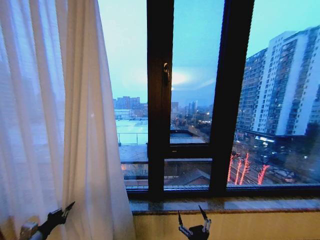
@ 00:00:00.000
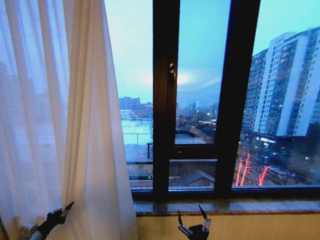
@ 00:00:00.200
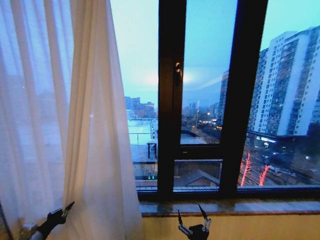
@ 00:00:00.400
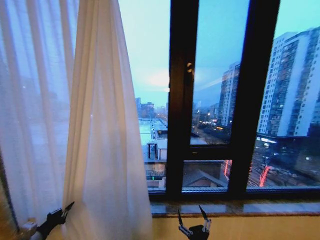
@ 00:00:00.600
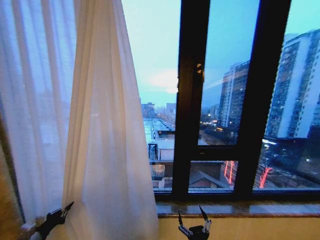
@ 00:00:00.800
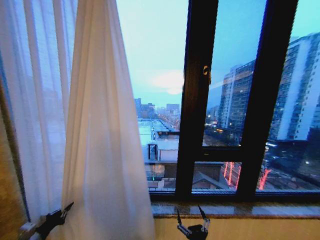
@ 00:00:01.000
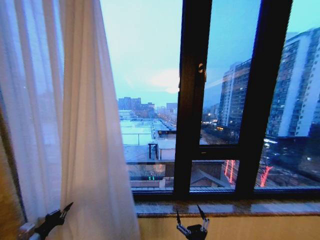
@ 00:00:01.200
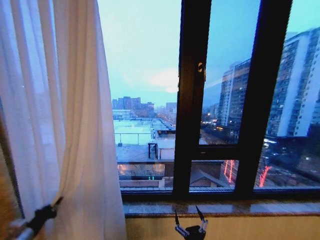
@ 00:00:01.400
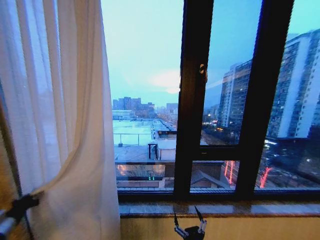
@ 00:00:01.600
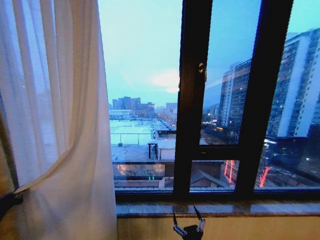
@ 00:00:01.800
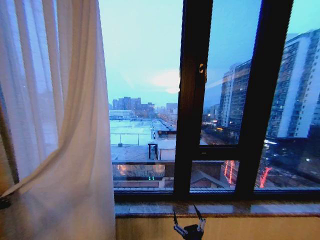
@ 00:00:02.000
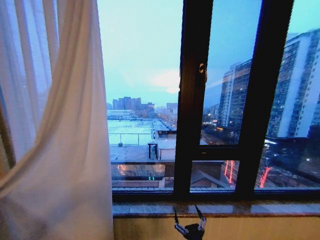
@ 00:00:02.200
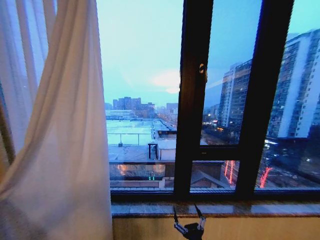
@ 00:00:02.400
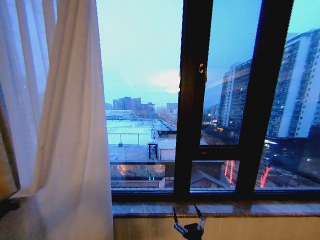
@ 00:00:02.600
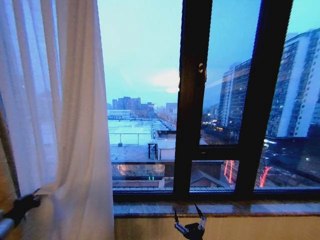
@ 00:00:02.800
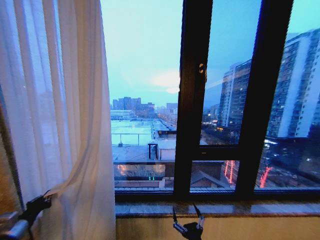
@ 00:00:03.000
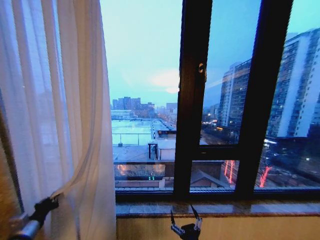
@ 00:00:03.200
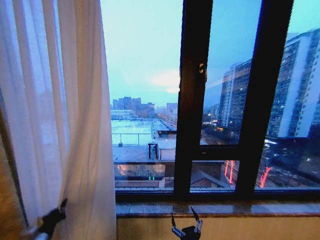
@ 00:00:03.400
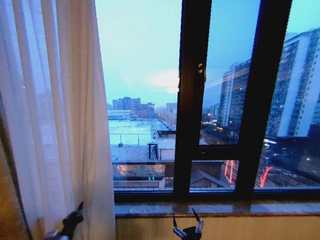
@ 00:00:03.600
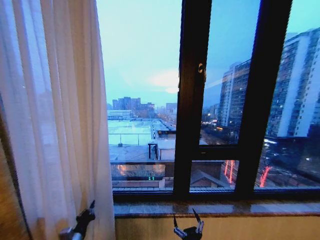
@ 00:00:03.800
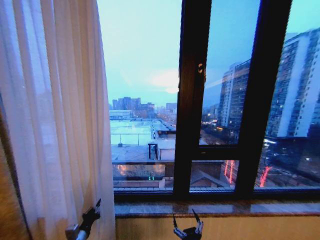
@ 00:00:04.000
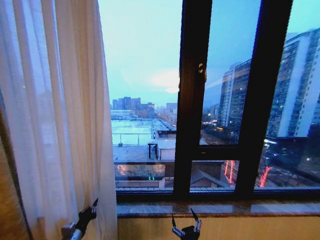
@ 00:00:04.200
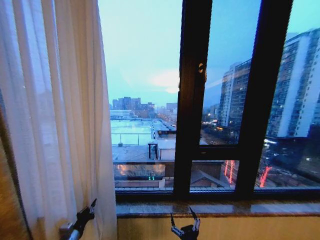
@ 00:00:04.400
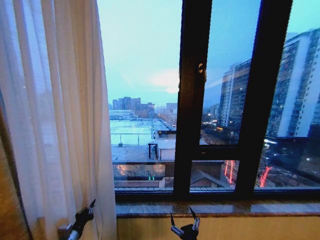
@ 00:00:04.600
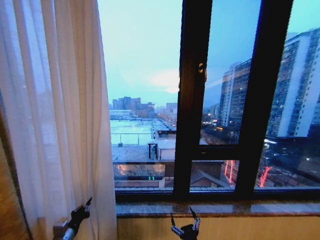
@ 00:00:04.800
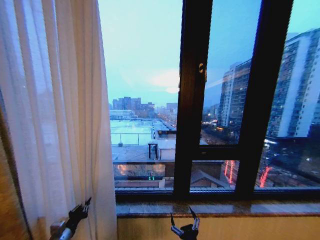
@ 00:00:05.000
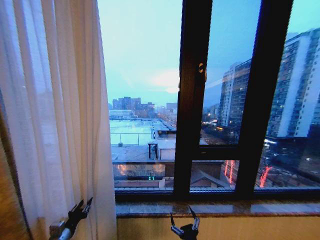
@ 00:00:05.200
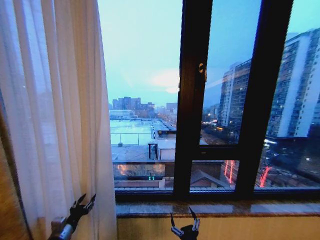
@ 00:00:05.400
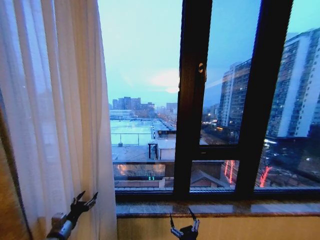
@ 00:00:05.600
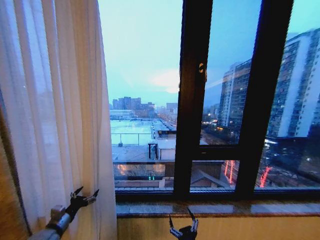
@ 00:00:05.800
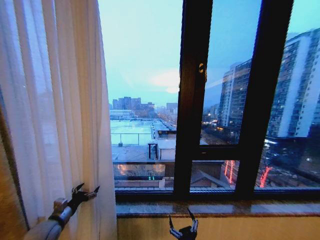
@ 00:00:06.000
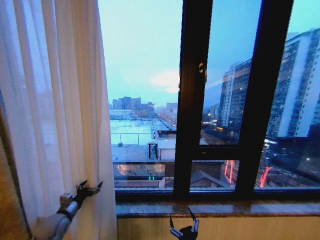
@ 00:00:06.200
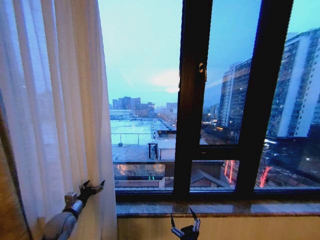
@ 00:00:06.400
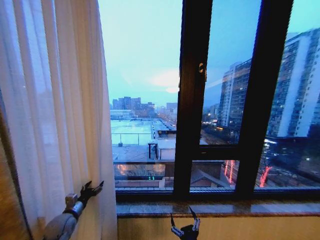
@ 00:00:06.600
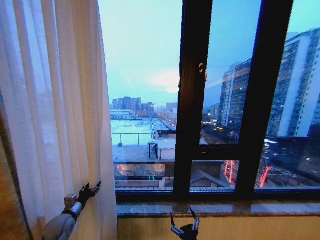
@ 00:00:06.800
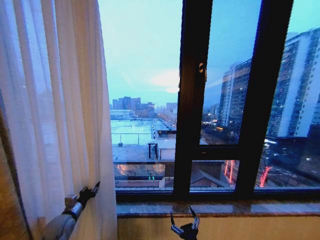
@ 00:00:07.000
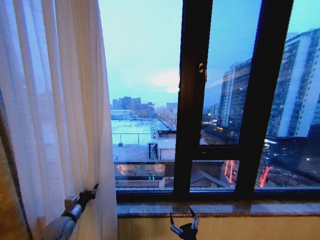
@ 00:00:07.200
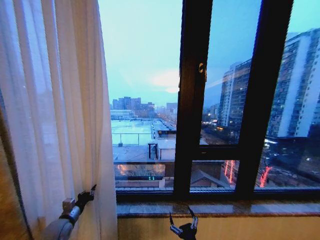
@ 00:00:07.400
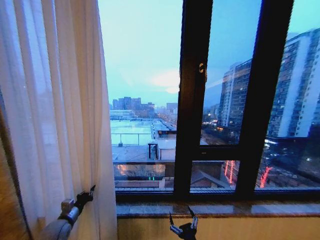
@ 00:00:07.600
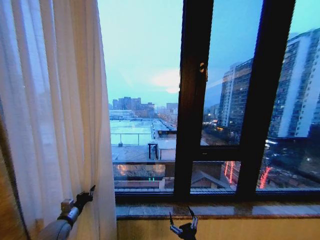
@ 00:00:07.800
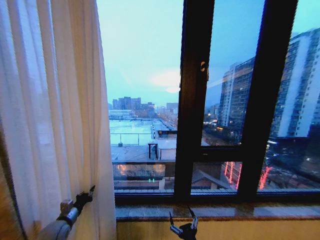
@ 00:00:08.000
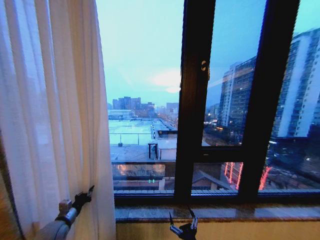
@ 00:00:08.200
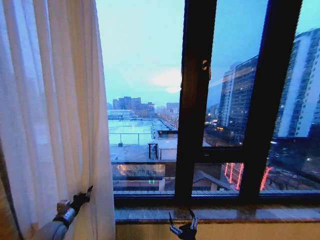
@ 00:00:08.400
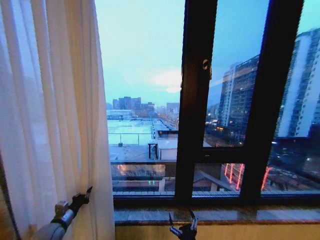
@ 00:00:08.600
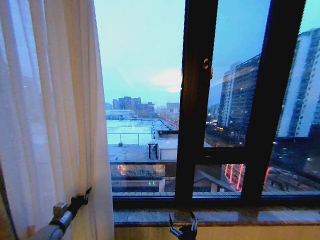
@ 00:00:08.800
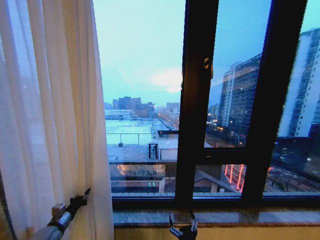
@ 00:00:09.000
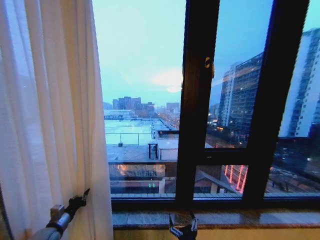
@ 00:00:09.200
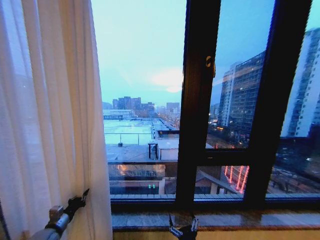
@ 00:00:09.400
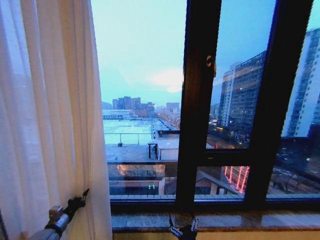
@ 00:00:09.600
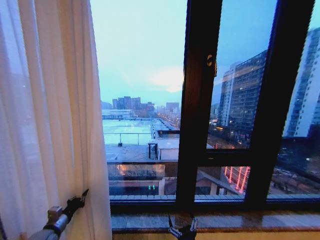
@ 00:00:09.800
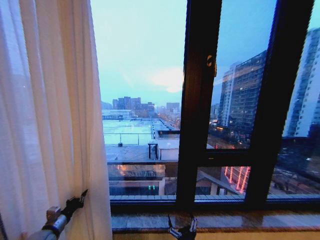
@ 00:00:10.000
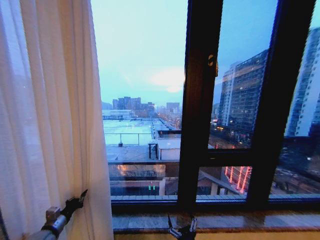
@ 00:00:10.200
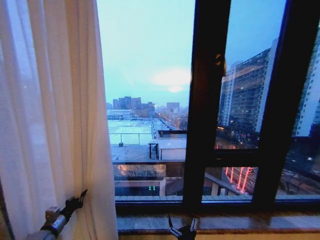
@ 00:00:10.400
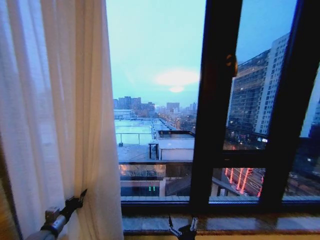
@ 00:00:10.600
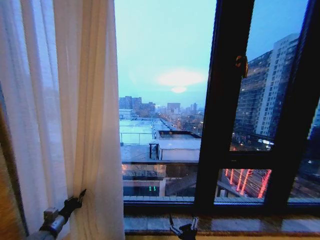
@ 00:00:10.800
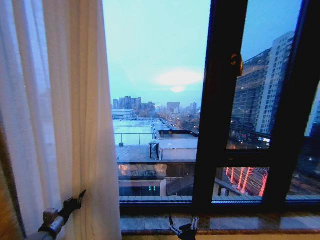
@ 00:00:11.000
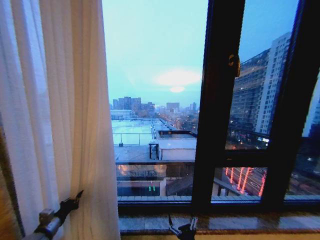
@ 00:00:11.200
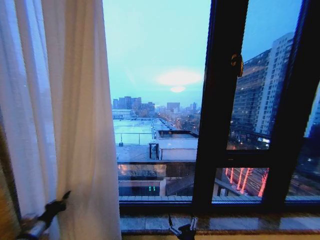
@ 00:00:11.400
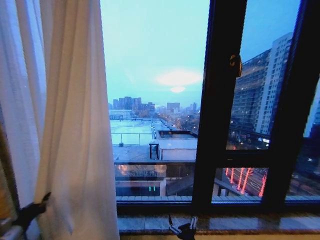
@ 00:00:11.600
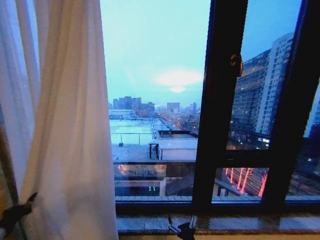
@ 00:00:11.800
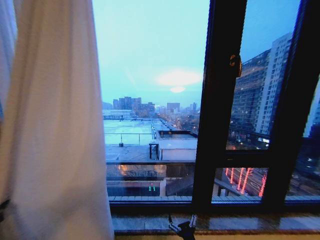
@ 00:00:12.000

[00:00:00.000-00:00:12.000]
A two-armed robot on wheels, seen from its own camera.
Task of the whole recording: Open the curtains by pulling them apart, changing their state from closed to fully open.
00:00:00.000 to 00:00:01.600: The left gripper shifts roughly 10 cm upward and to the left.
00:00:01.600 to 00:00:03.000: The left gripper travels to the right by approximately 5 cm.
00:00:03.000 to 00:00:04.400: The left gripper moves to the right and downward, about 20 cm.
00:00:04.400 to 00:00:06.000: The left gripper shifts roughly 10 cm upward and to the left, and opens up.
00:00:06.000 to 00:00:07.600: The left gripper closes its fingers.
00:00:10.400 to 00:00:12.000: The left gripper goes some 20 cm to the left and backward.

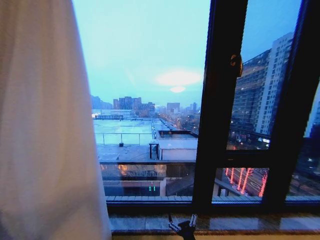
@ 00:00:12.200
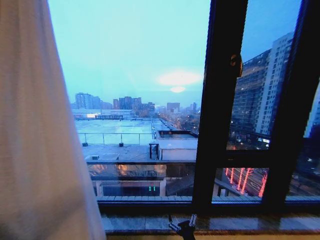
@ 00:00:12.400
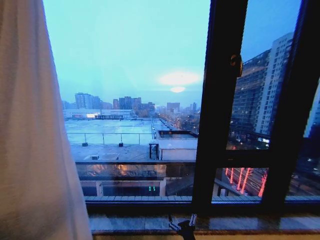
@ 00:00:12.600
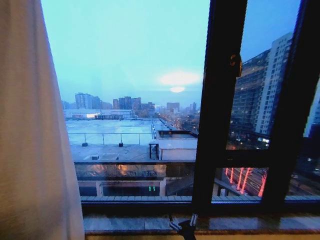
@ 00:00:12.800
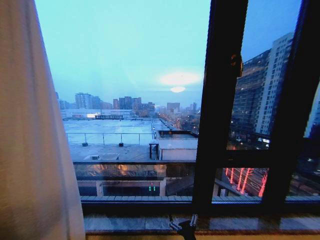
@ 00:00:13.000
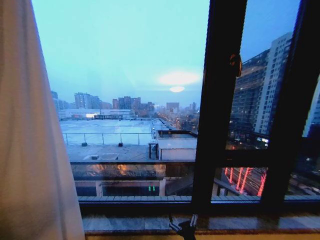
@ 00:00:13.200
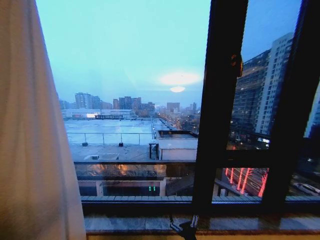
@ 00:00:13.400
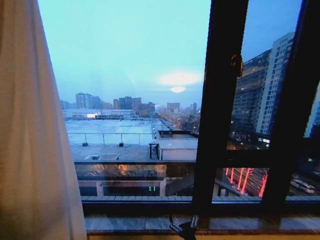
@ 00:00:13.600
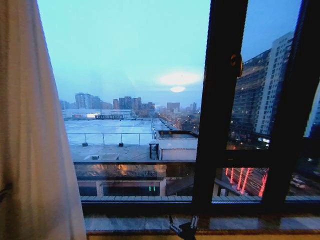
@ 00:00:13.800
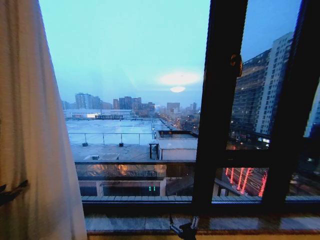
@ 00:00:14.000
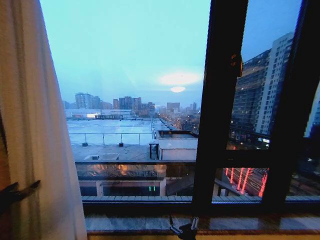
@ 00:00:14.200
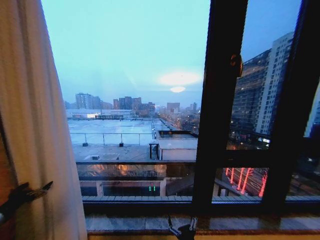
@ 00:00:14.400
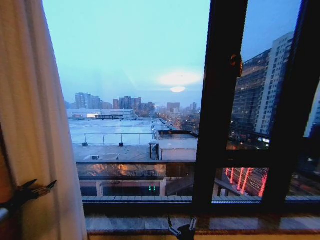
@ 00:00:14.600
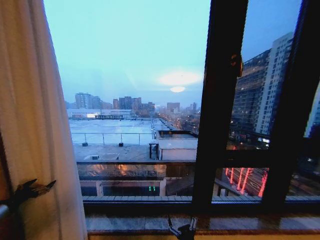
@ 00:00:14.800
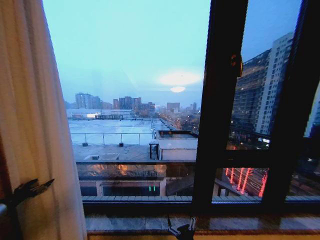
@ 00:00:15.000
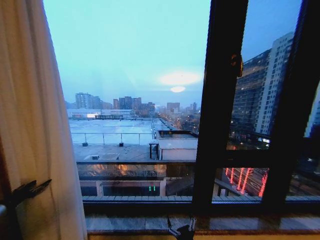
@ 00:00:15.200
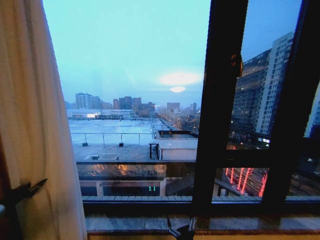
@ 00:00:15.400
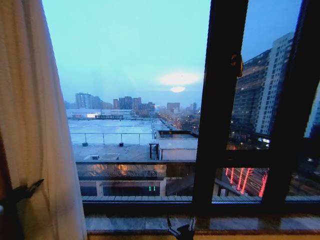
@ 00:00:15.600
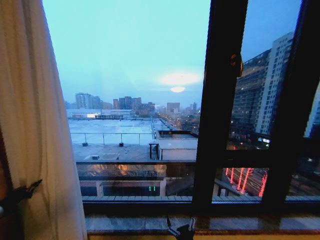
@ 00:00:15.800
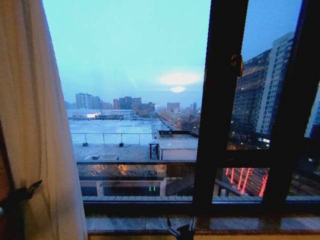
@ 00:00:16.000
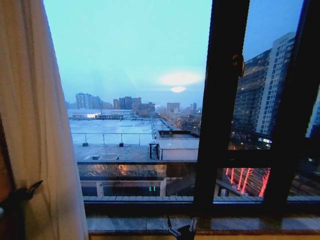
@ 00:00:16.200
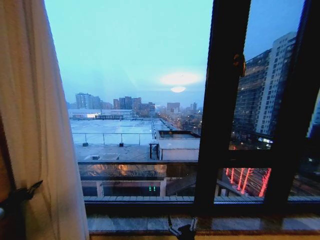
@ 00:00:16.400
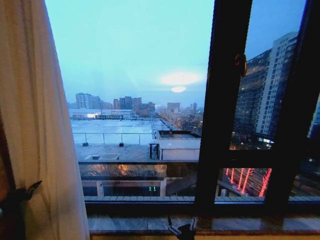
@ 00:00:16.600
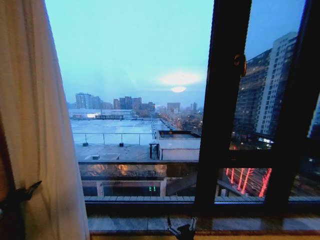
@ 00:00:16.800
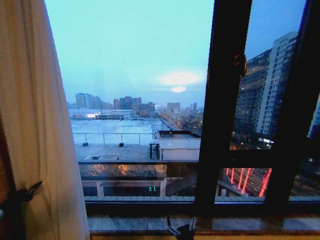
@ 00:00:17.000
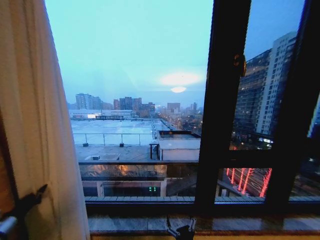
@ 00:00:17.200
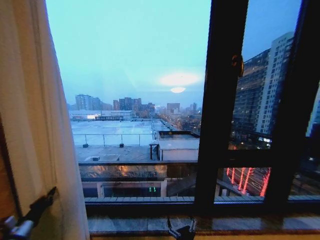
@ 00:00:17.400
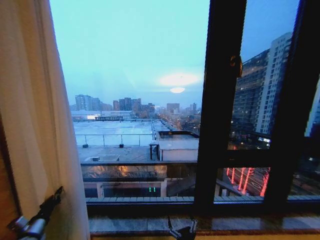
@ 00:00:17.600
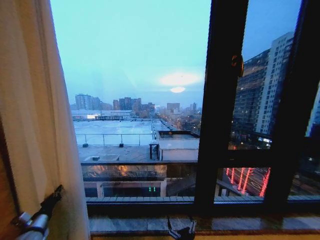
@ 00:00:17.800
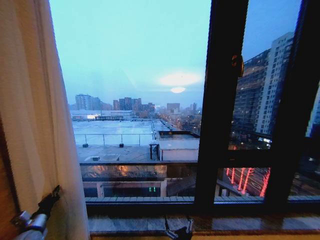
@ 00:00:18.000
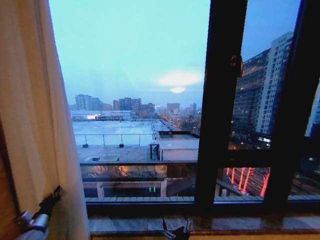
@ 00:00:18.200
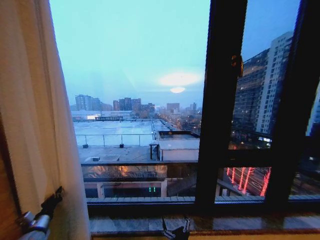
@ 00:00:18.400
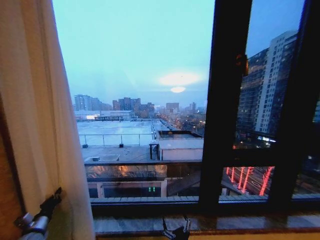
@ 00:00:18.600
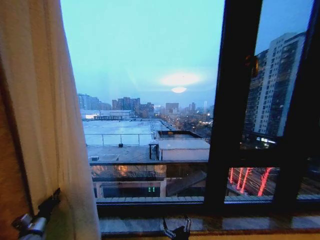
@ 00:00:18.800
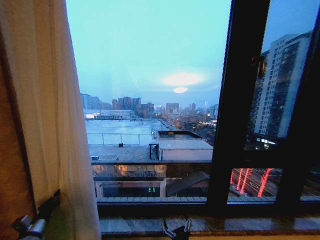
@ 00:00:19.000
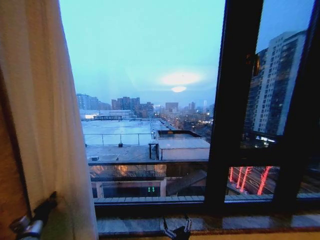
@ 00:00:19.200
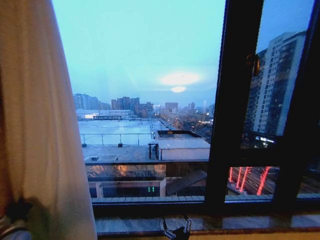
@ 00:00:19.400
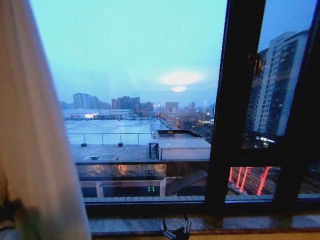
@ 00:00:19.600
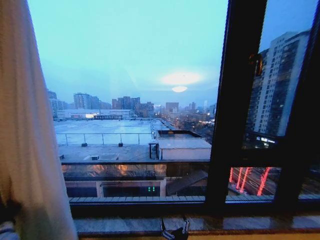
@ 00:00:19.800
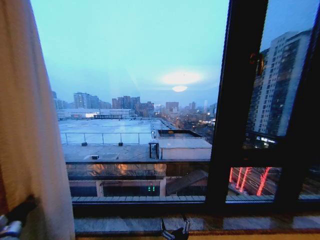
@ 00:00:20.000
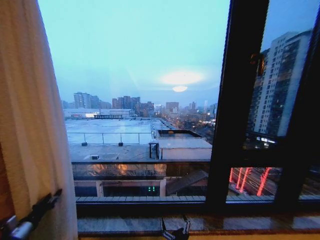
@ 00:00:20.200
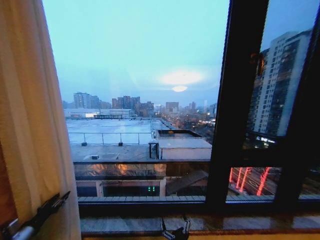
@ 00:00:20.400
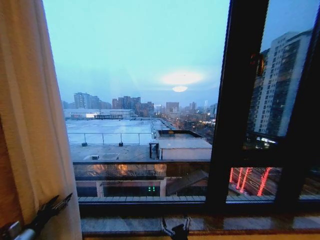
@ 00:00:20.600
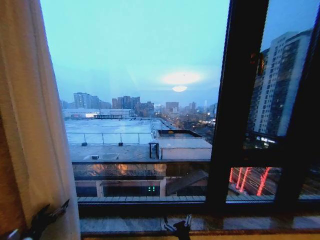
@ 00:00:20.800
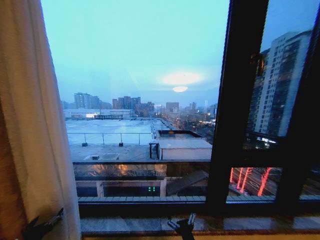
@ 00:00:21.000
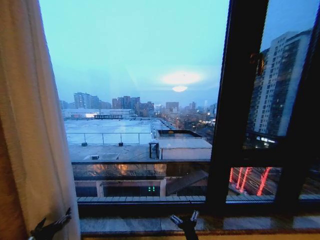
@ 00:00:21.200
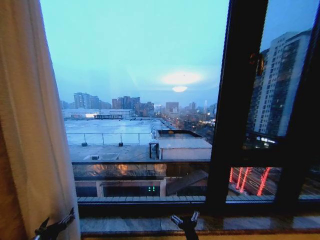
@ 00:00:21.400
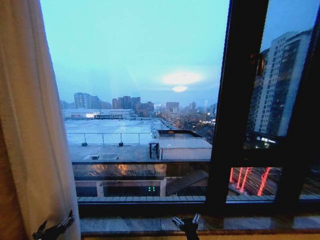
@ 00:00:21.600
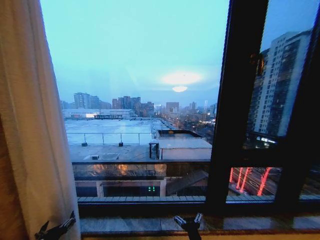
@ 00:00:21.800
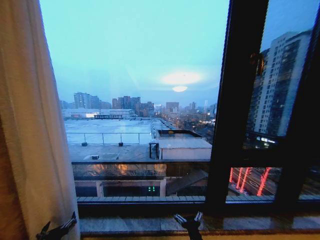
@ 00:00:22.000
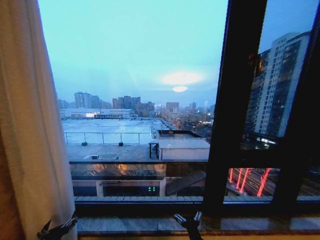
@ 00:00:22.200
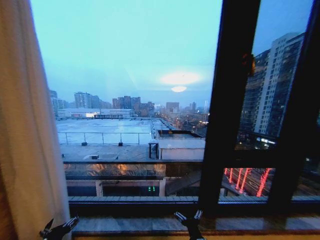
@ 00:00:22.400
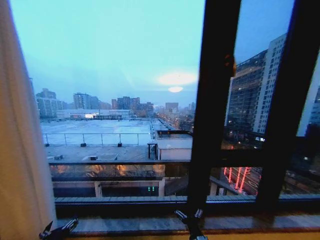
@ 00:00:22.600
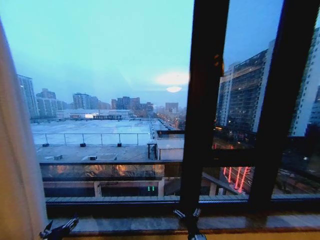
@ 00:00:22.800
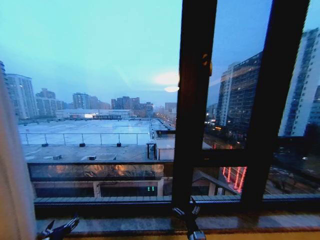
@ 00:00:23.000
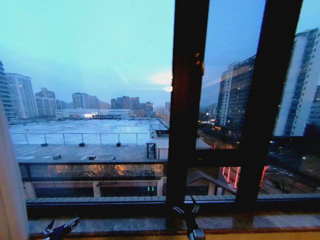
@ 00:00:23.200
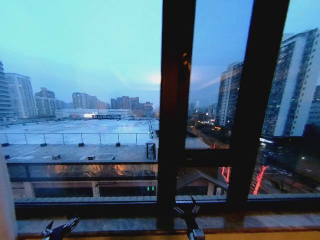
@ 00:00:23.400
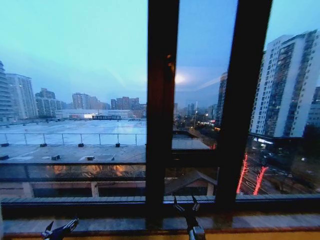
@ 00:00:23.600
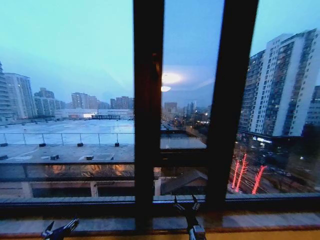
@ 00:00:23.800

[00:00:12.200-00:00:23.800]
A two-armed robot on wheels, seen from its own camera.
Task of the whole recording: Open the curtains by pulling them apart, changing their state from closed to fully open.
00:00:12.200 to 00:00:13.600: The left gripper shifts by roughly 5 cm.
00:00:13.600 to 00:00:15.000: The left gripper is displaced to the right and forward by some 10 cm, and opens up.
00:00:15.000 to 00:00:16.600: The left gripper closes up.
00:00:16.600 to 00:00:18.000: The left gripper is displaced to the right and downward by approximately 15 cm.
00:00:19.400 to 00:00:21.000: The left gripper moves backward and to the right, roughly 15 cm, and opens its fingers.
00:00:21.000 to 00:00:22.400: The left gripper goes roughly 5 cm to the right.
